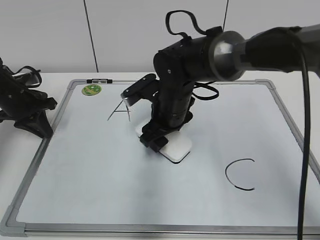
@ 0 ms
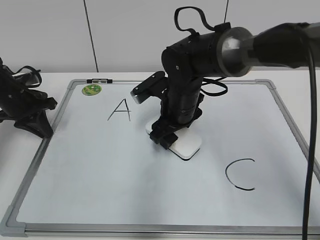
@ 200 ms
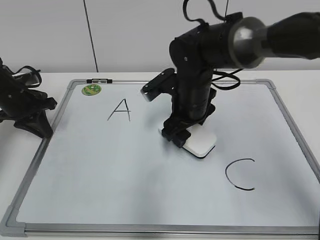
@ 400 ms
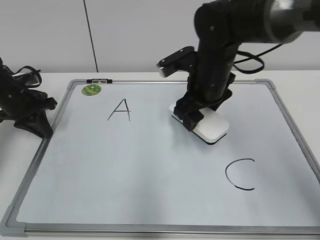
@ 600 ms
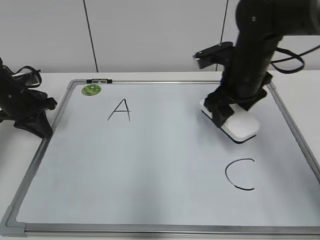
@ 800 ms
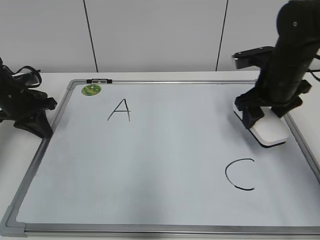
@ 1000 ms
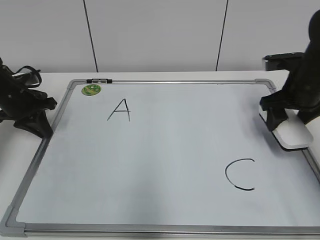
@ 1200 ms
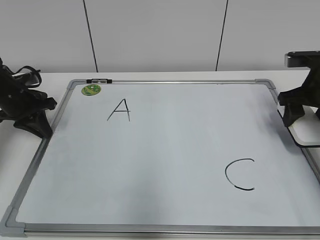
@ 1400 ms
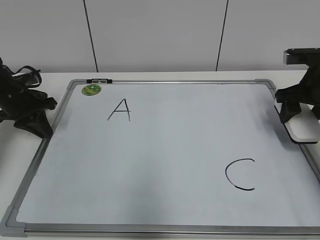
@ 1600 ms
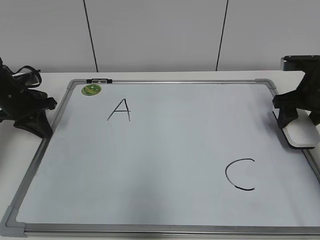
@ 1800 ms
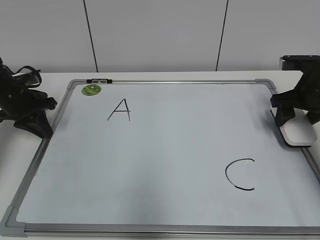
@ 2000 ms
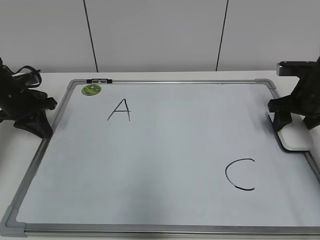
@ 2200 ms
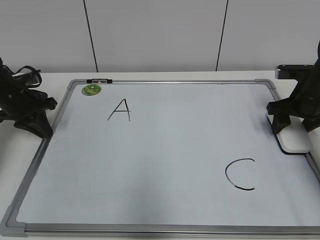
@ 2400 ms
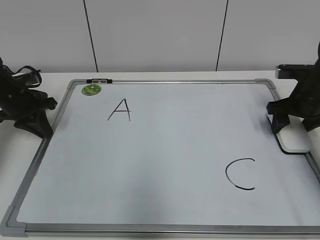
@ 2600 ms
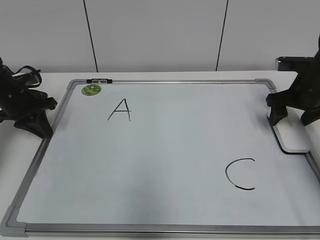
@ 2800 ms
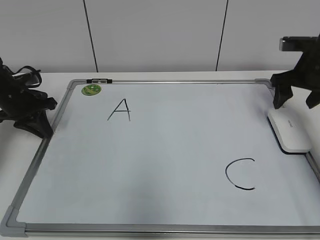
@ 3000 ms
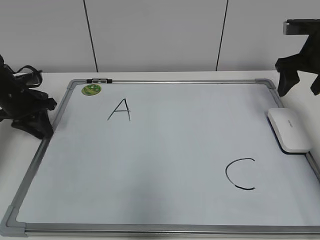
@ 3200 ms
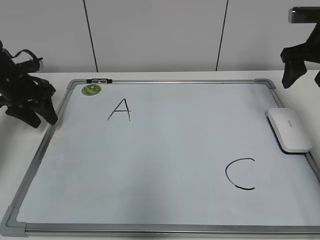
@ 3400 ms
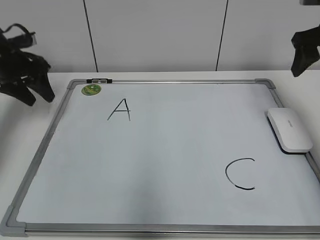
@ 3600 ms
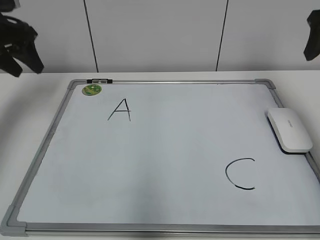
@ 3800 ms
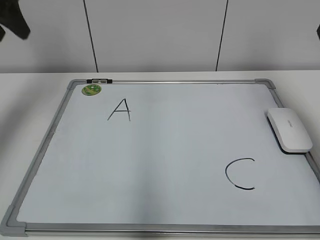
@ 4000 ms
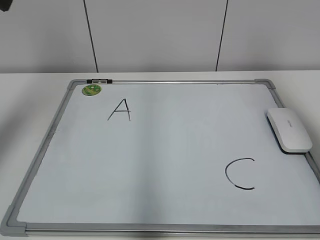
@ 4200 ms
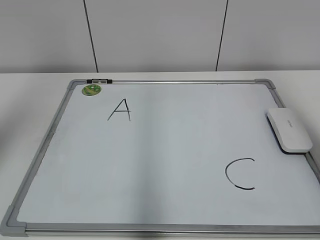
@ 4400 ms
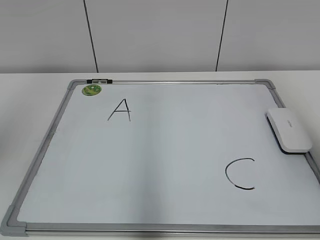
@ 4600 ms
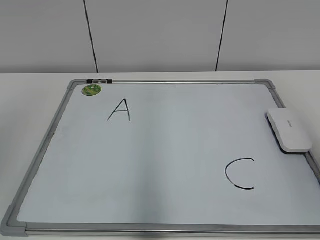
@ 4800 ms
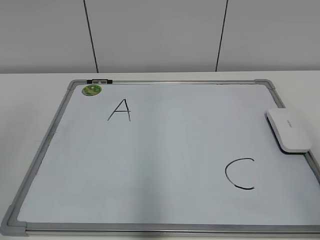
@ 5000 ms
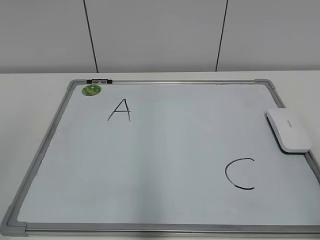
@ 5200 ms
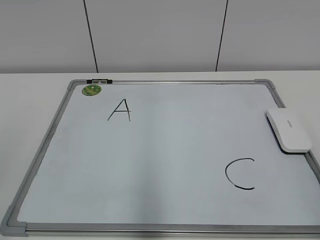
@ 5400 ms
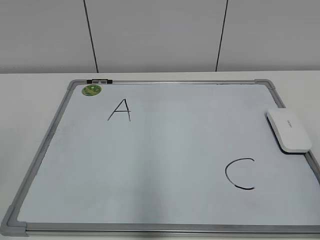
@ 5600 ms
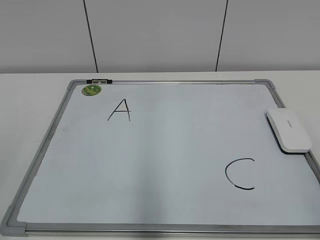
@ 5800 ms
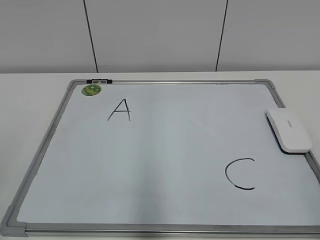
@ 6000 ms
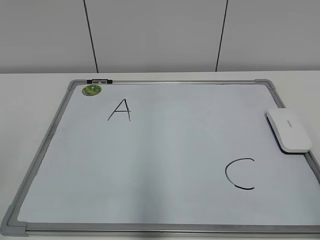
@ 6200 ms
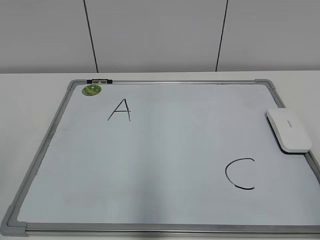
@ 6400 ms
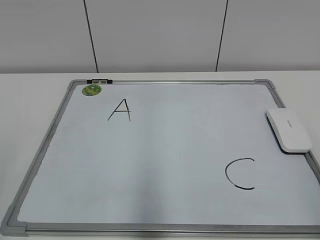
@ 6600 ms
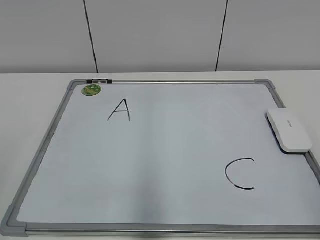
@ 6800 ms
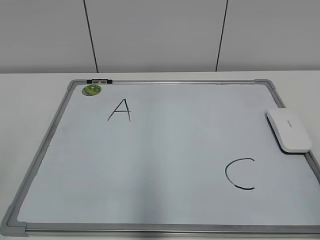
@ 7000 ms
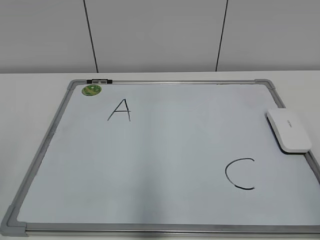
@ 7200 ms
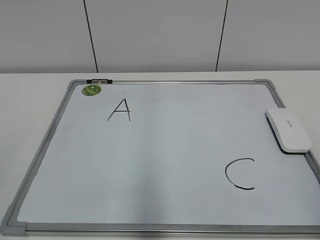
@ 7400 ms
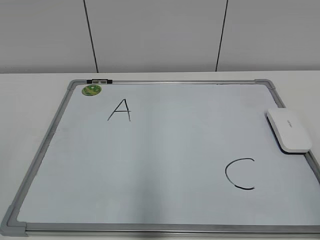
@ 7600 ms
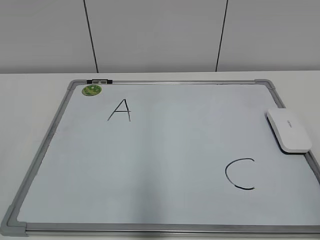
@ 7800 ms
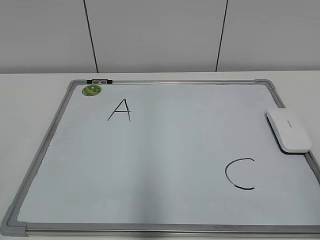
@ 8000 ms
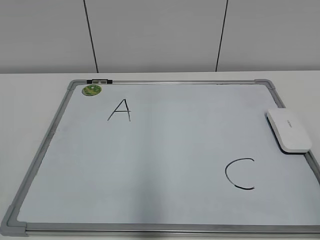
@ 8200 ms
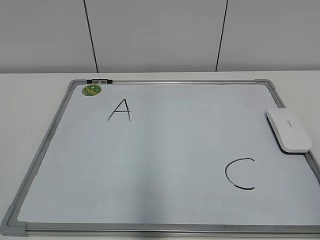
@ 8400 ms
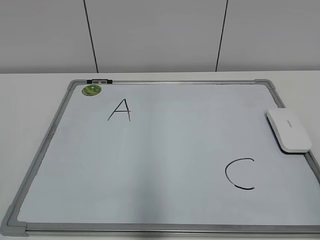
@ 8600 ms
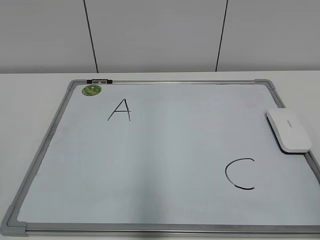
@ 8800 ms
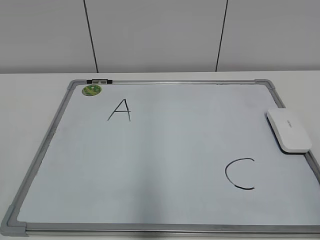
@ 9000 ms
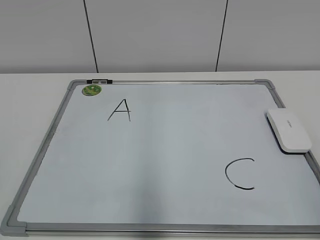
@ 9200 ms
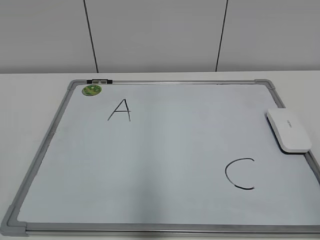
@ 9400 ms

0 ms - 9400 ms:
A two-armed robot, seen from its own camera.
Task of the whole recording: pick up the eraser on the blackboard and erase the letter "B".
Step, 600 ms - 2400 ms: Put down the eraser with your right hand.
0 ms - 1600 ms: The right gripper heads to the right, covering approximately 25 cm.
1600 ms - 3200 ms: The right gripper shifts by roughly 5 cm, and opens up.
3200 ms - 4800 ms: Both grippers move backward and upward, about 35 cm. The right gripper closes up. Meanwhile the left gripper opens up.
